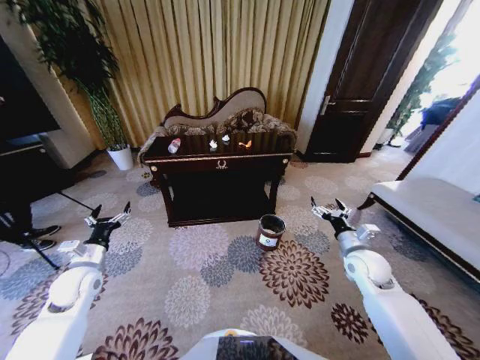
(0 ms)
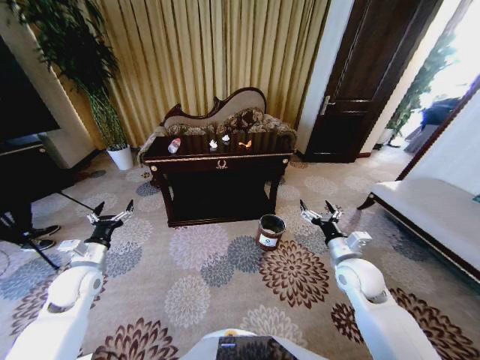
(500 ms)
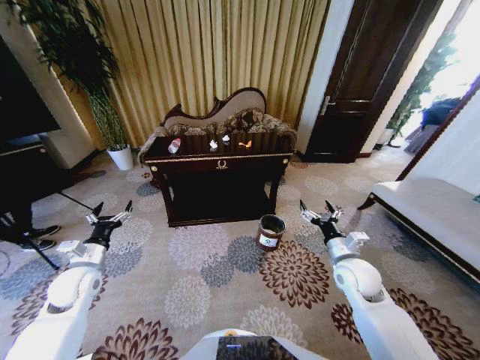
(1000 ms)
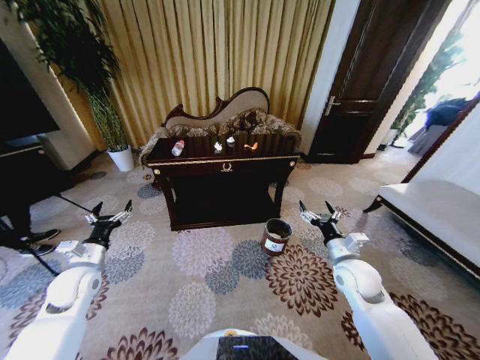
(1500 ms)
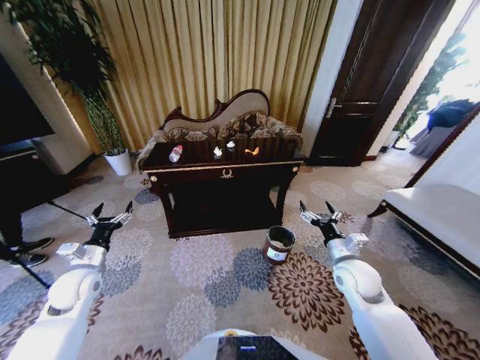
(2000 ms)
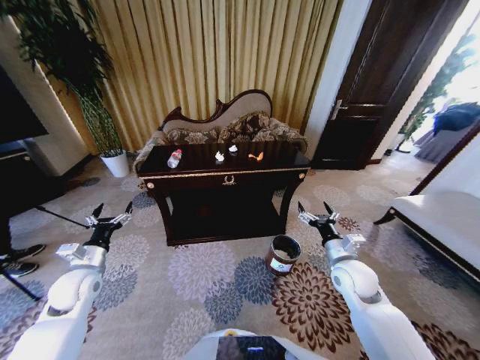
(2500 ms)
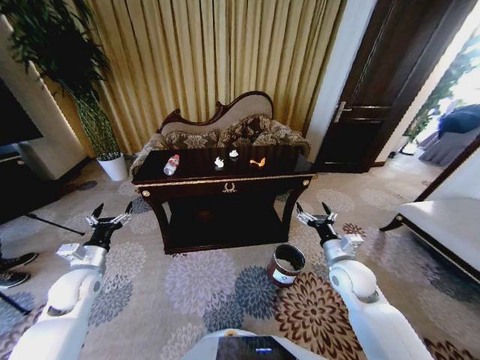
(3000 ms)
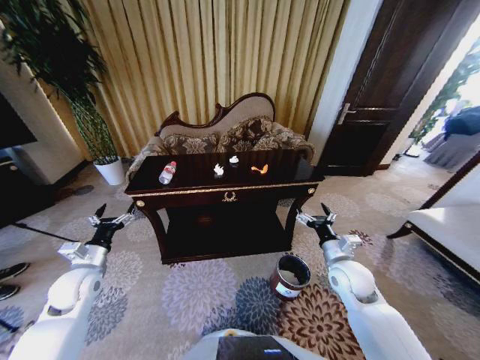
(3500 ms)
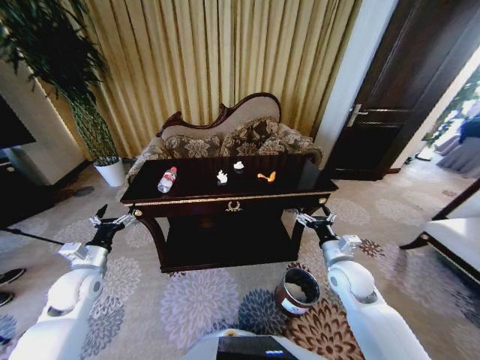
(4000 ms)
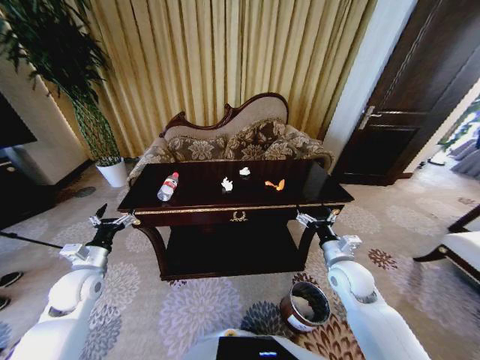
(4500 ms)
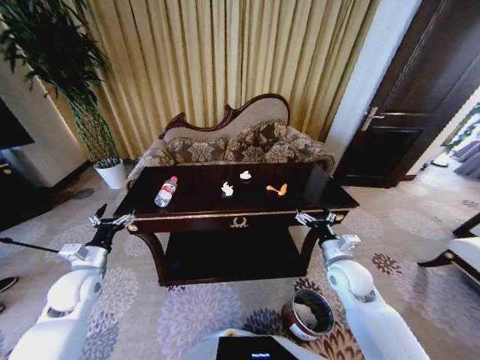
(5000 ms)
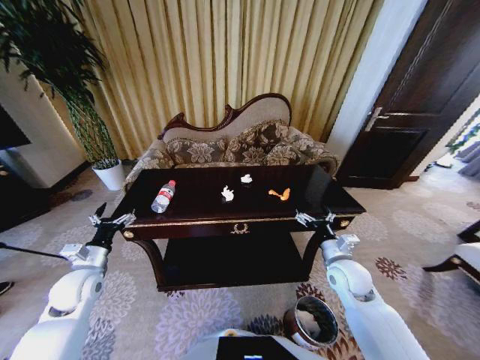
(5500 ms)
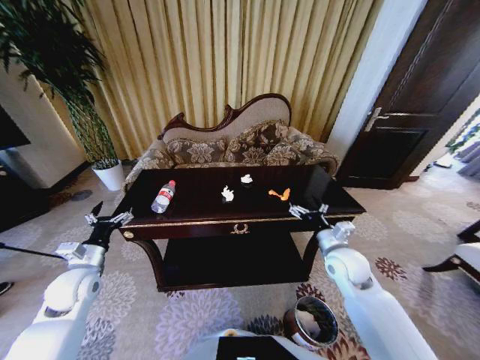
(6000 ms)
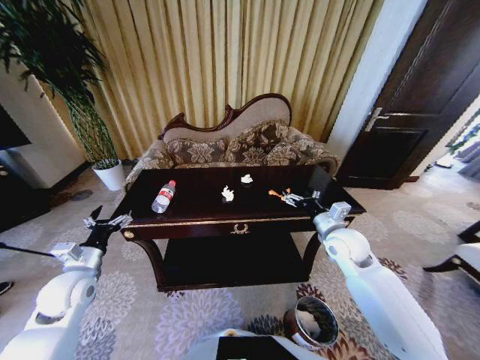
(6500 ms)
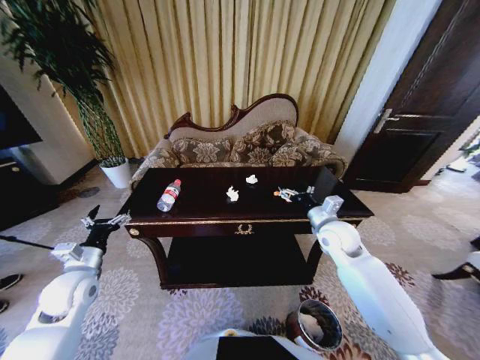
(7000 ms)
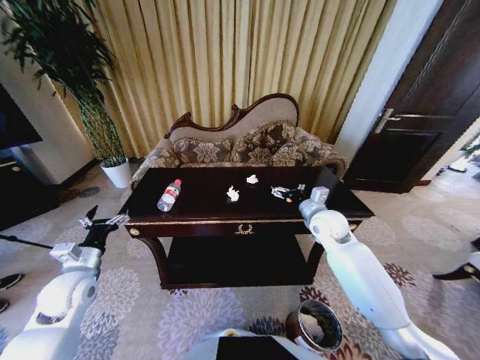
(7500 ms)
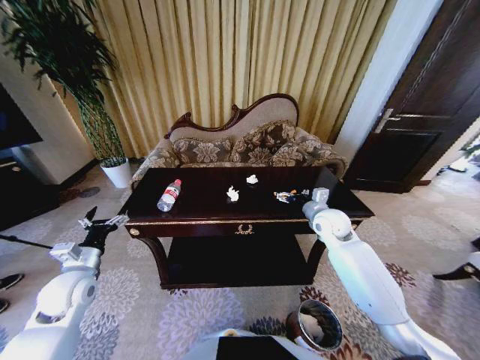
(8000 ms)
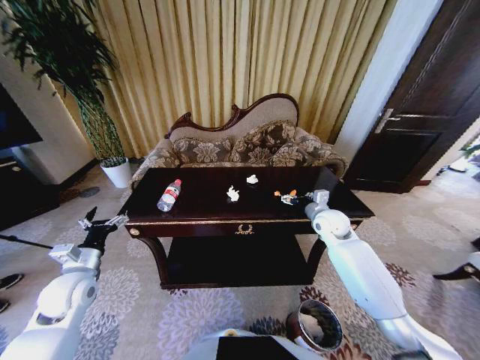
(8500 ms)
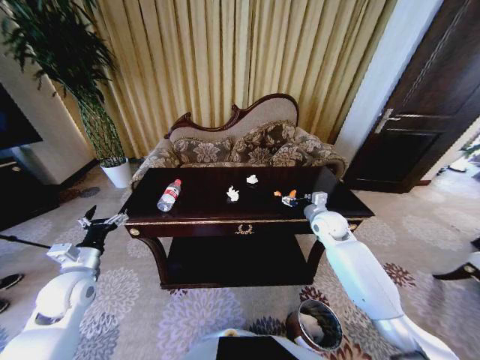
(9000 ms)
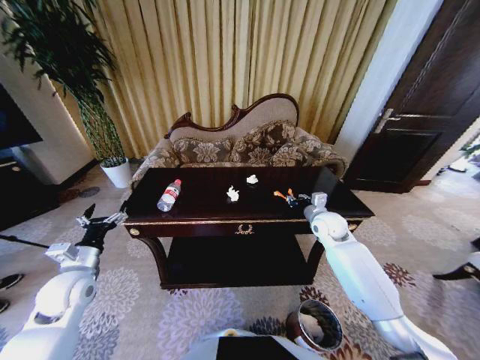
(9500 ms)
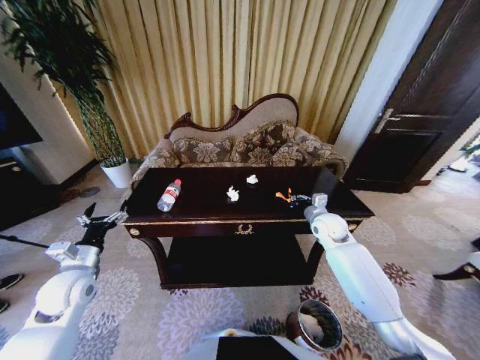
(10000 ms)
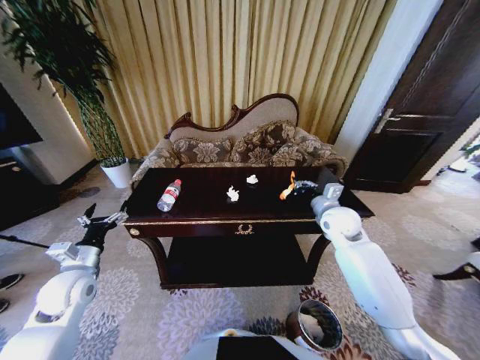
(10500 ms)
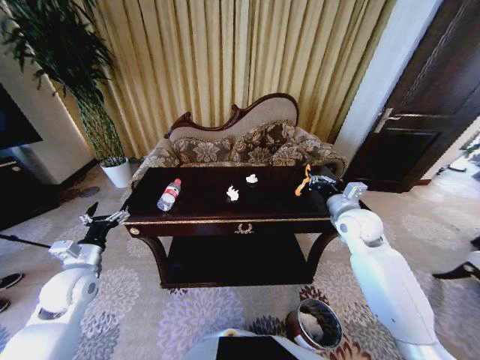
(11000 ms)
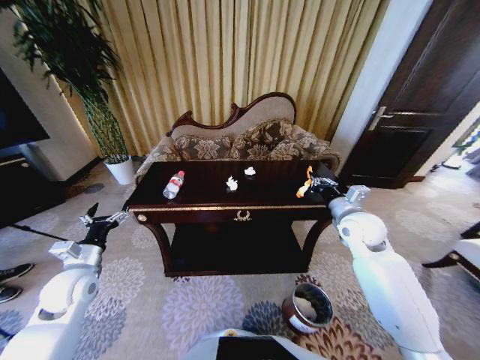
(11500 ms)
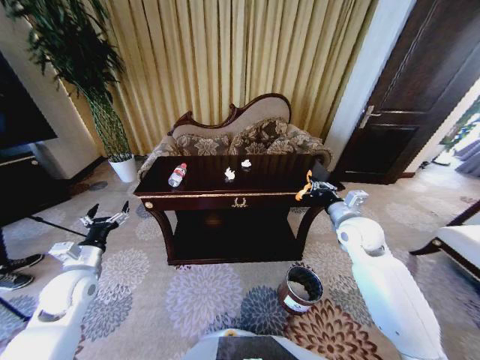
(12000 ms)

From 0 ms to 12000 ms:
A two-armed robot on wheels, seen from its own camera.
Task of the whole recording: Move to the front of the table and place the trash on the table into the trash bin.
From 6000 ms to 8000 ms: The right gripper heads forward, covering about 10 cm.
From 8000 ms to 10000 ms: The right gripper closes up.
From 10000 ms to 12000 ms: The right gripper heads backward and upward, covering roughly 10 cm.

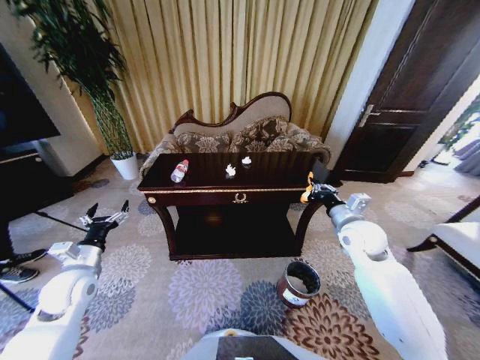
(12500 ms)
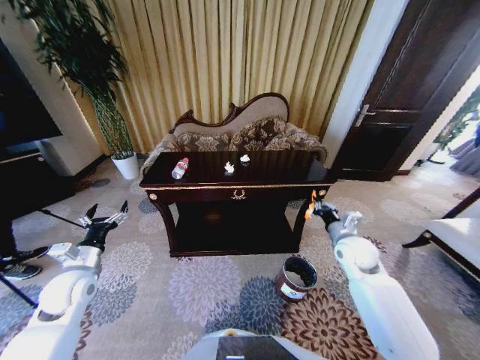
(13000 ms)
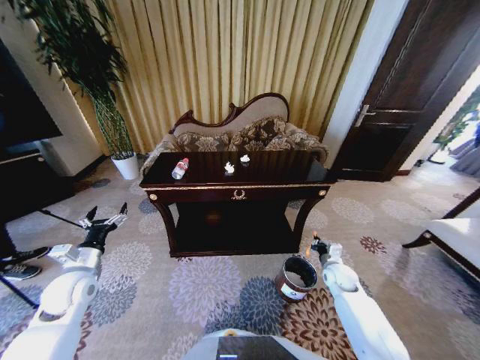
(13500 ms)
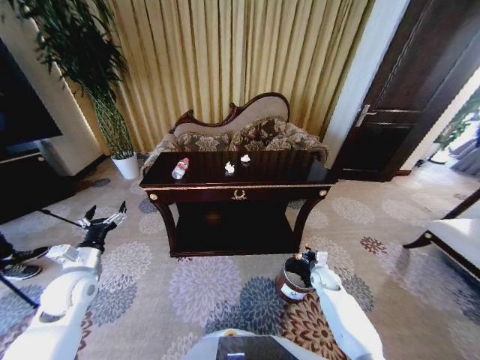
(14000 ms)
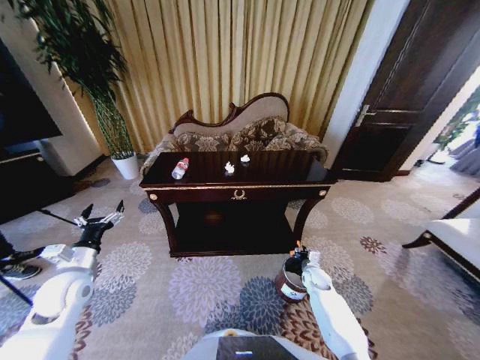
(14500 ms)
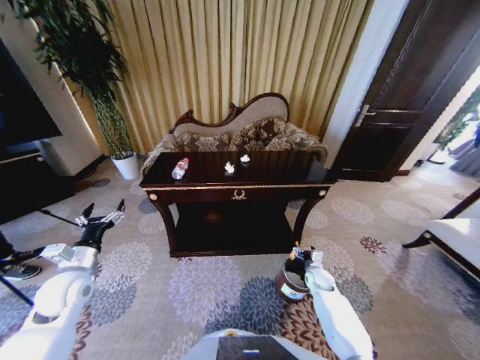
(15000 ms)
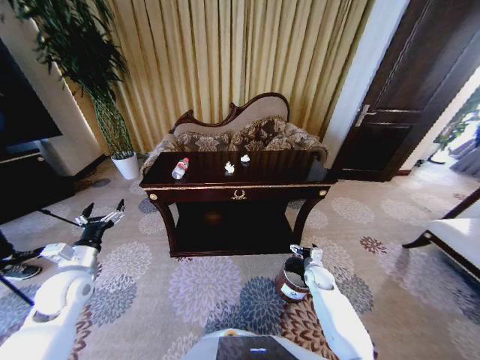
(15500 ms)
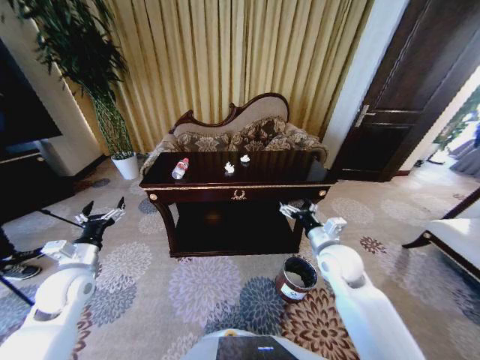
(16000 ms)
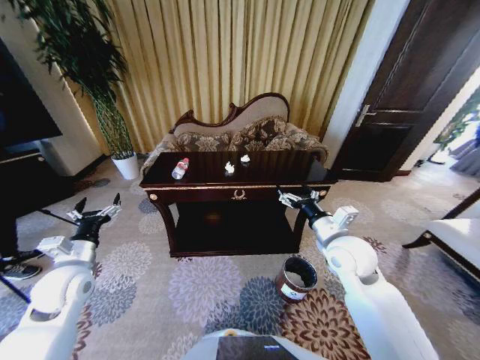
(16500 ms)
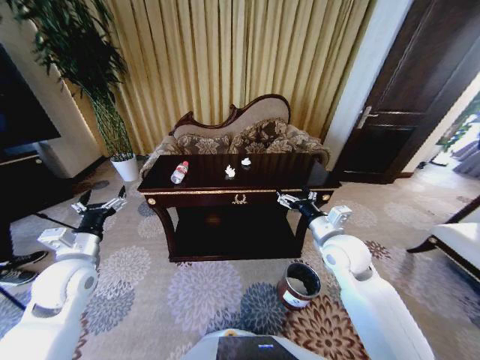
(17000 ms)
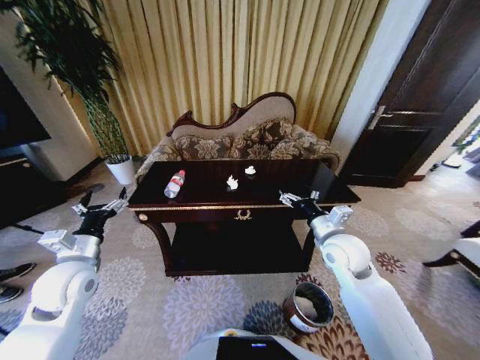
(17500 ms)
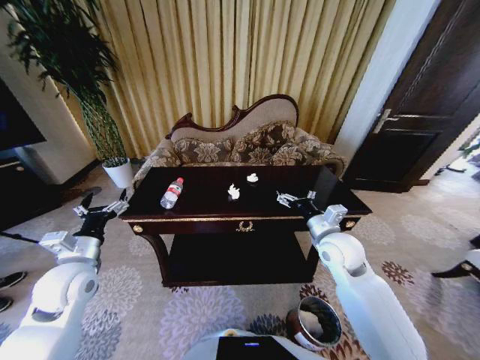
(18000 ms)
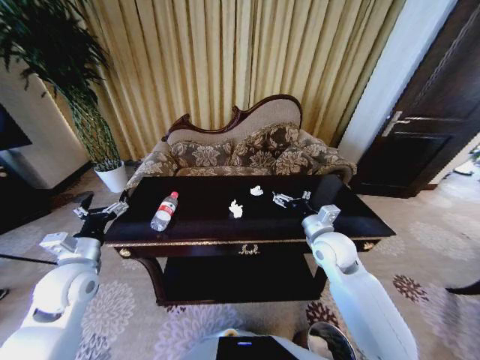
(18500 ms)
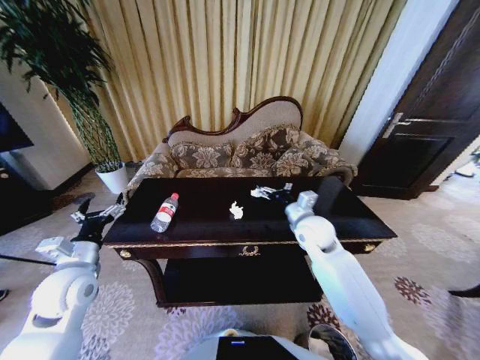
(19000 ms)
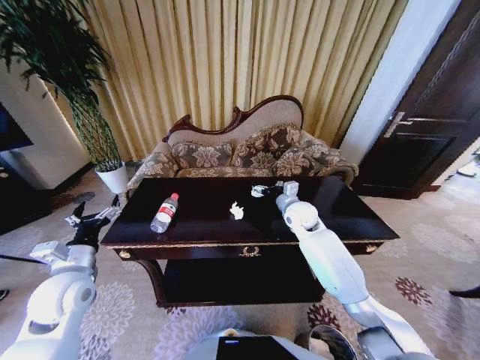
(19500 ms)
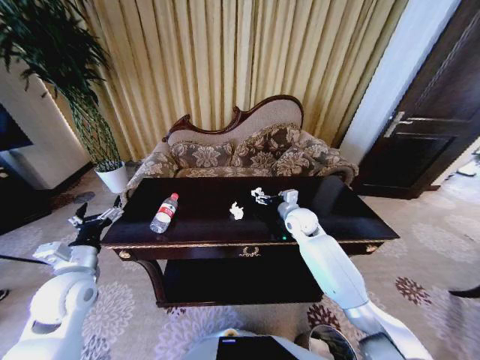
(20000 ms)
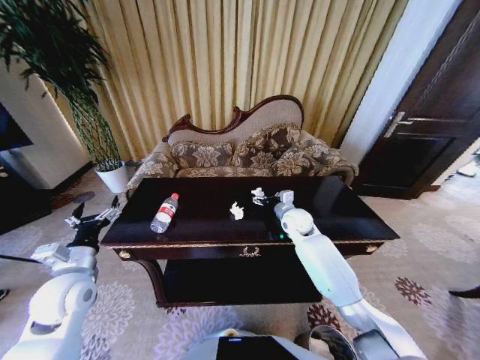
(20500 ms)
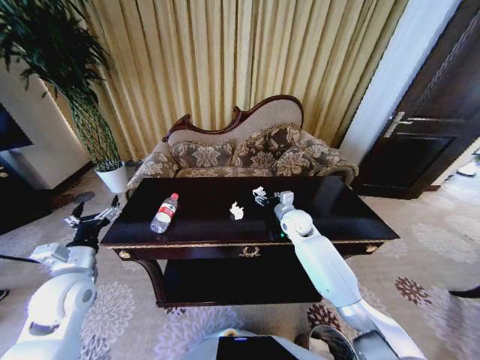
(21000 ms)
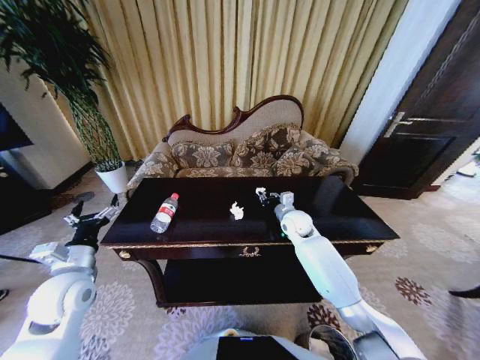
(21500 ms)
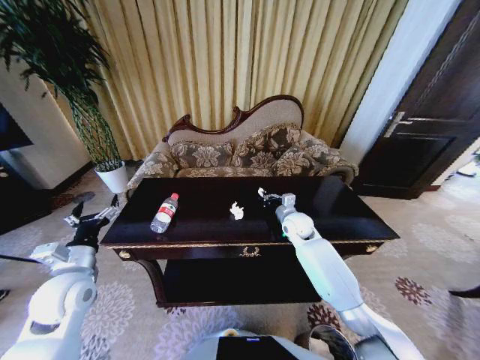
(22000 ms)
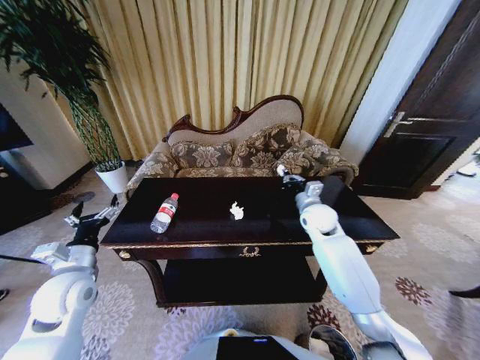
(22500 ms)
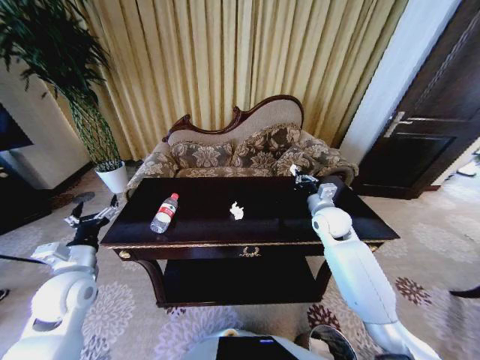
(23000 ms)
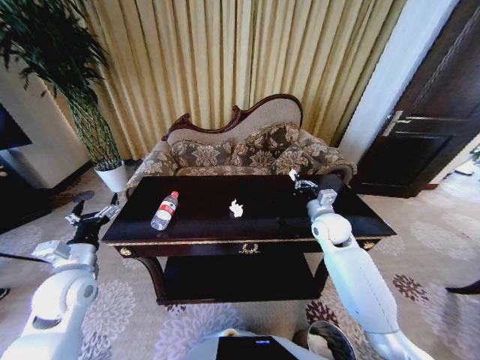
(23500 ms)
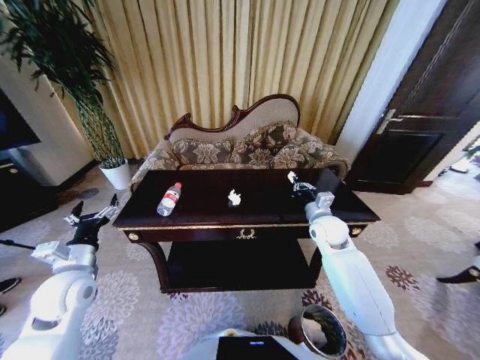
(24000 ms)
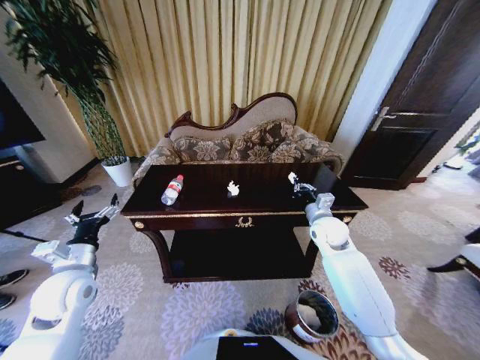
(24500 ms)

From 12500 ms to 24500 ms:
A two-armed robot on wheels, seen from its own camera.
Task of the whole recording: Move to the front of the table and place the trash on the table into the trash bin.
From 12500 ms to 14500 ms: The right gripper is displaced downward by roughly 30 cm.
From 14500 ms to 16500 ms: The right gripper goes about 30 cm upward, and opens.
From 18500 ms to 20500 ms: The right gripper moves forward, about 15 cm.
From 20500 ms to 22500 ms: The right gripper ends up roughly 5 cm from where it was, and closes up.
From 22500 ms to 24500 ms: The right gripper shifts by approximately 5 cm.

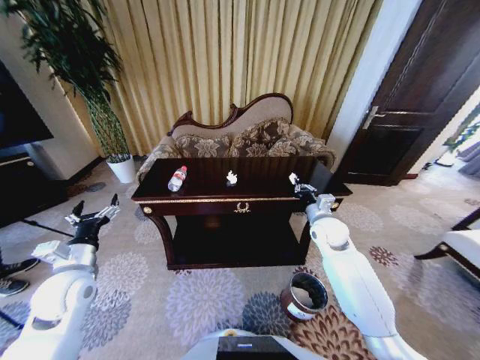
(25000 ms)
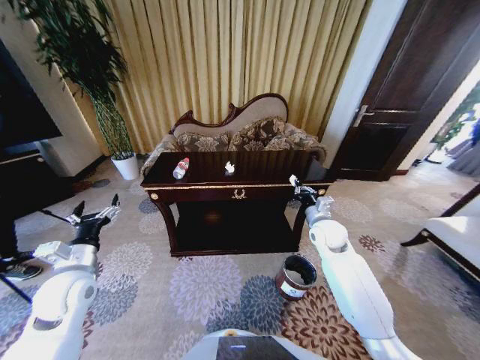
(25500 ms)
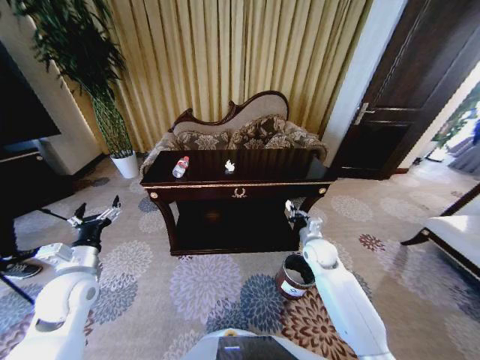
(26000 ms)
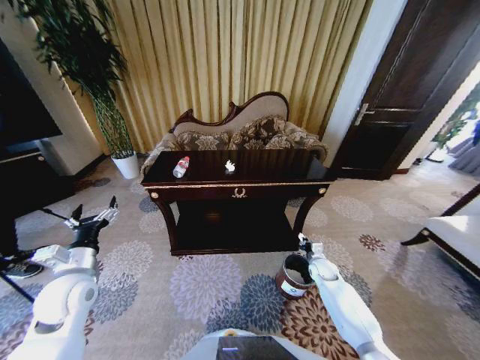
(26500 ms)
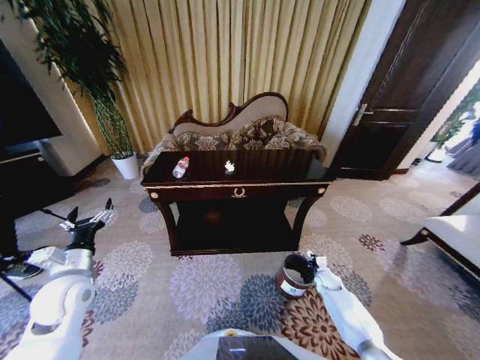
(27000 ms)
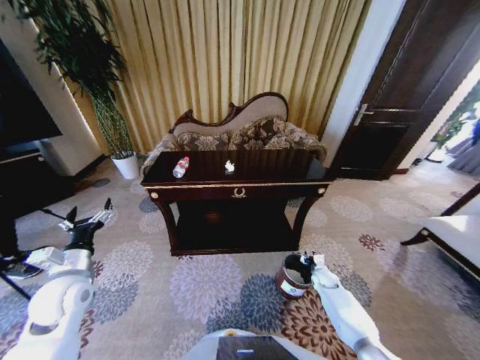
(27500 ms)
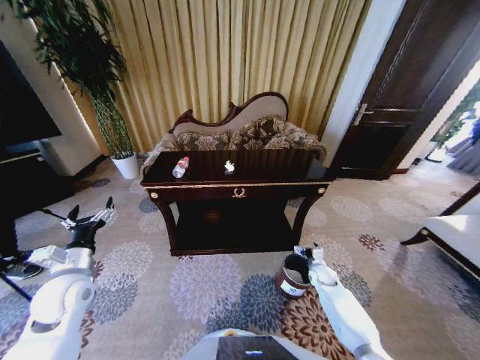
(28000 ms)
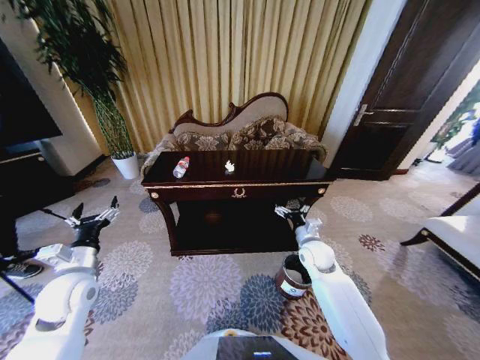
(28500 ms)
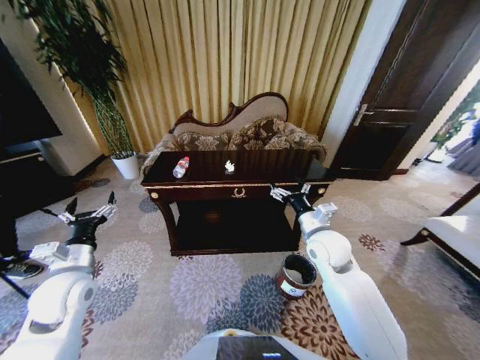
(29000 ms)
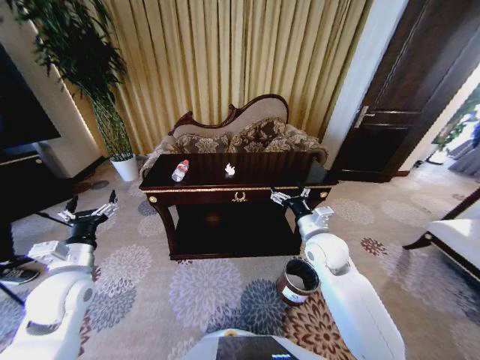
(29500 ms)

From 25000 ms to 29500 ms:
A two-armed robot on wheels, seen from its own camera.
Task of the whole recording: Move to the front of the table and place the trash on the table into the trash bin.
From 25000 ms to 27000 ms: The right gripper moves downward, roughly 30 cm.
From 27000 ms to 29500 ms: The right gripper heads upward and to the left, covering some 35 cm, and opens up.
